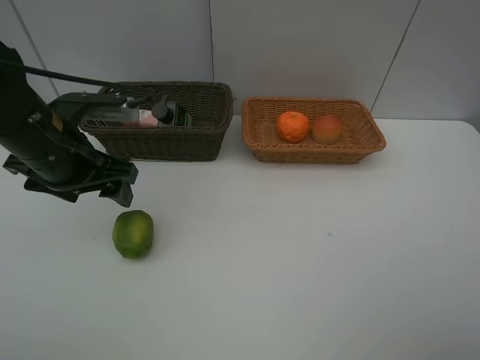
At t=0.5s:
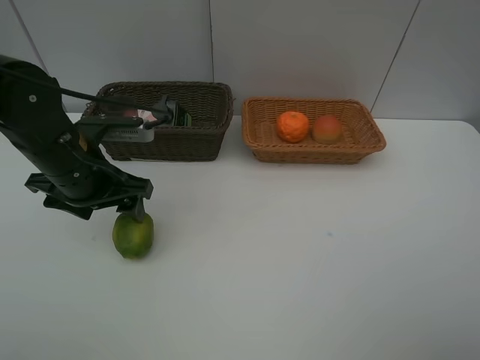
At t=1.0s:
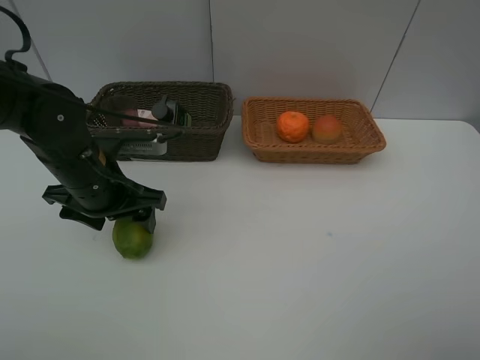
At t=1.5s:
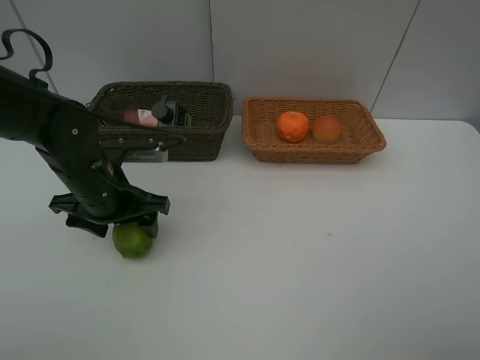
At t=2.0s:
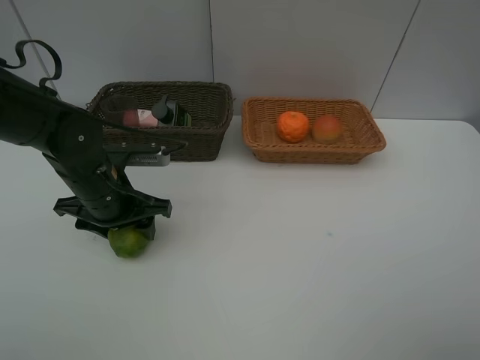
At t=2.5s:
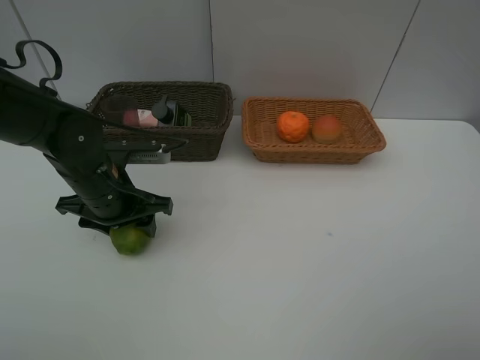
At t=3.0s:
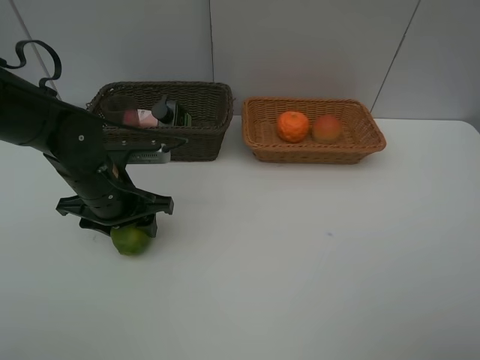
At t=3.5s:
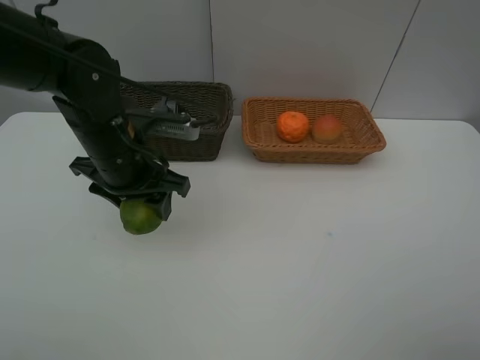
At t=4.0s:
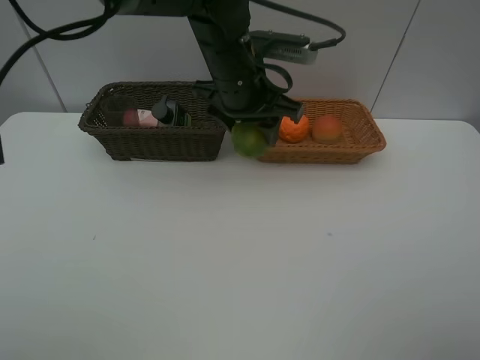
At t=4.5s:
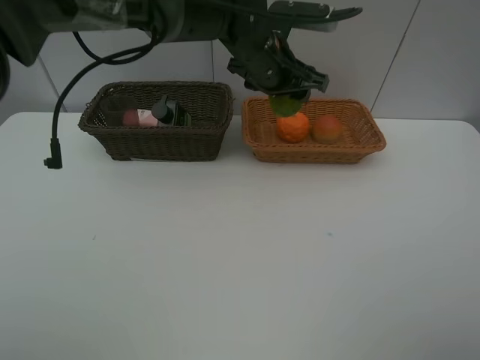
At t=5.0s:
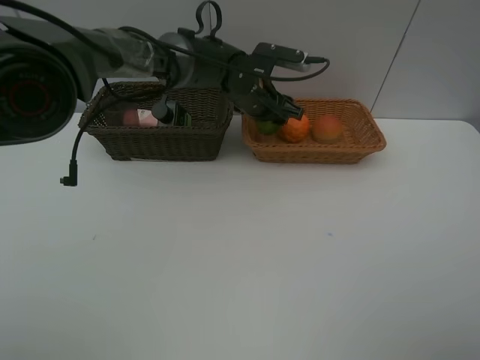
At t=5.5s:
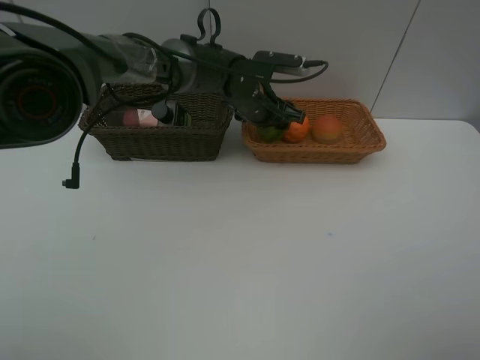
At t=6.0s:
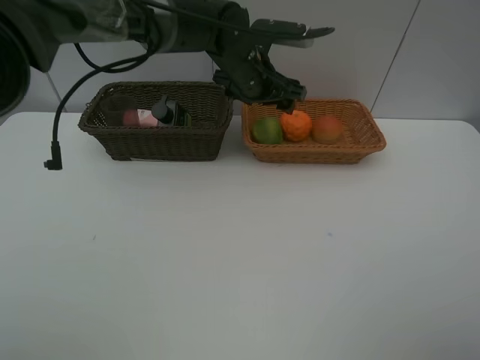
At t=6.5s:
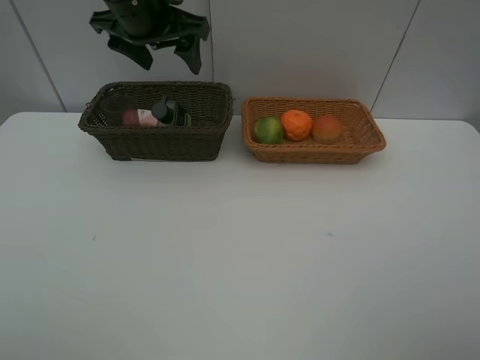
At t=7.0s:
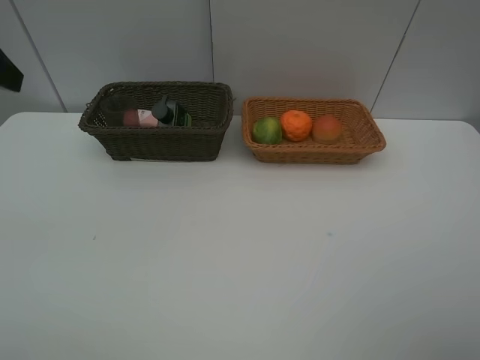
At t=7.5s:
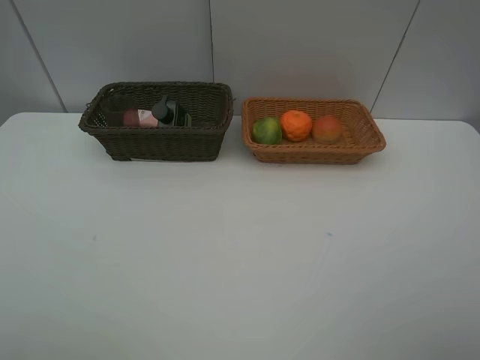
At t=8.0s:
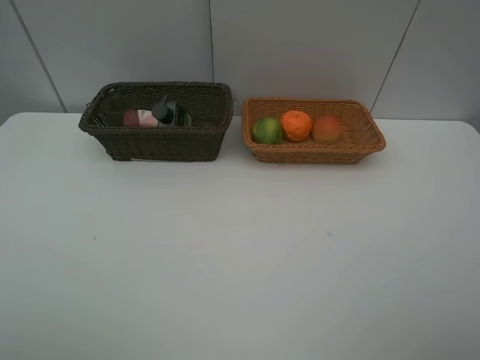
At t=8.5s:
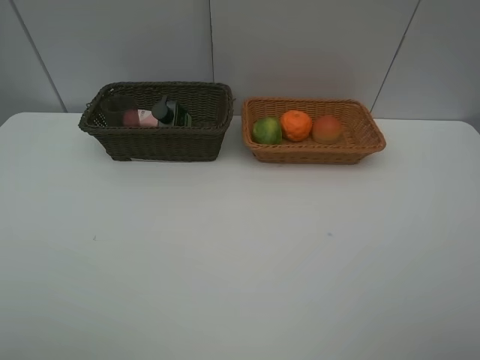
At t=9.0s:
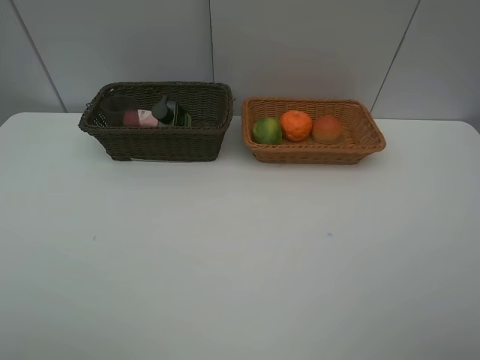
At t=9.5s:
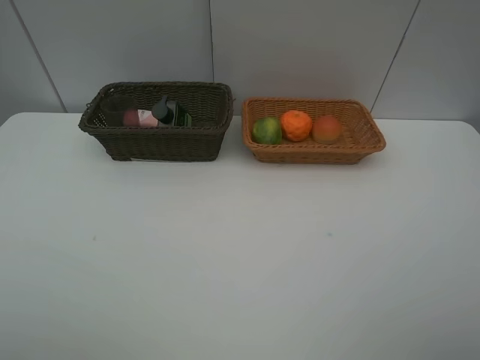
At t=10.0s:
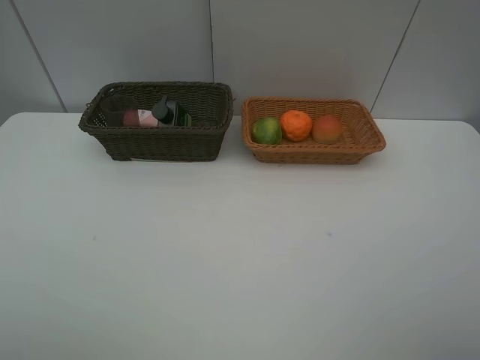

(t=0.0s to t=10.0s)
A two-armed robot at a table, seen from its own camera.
Task of the whole recording: place multiple objects separately in different baskets.
t=0.0s - t=2.0s: The left gripper moves downward, approximately 10 cm.
t=2.0s - t=4.0s: The left gripper goes roughly 25 cm to the right, upward and forward.
t=4.0s - t=6.0s: The left gripper travels forward by about 5 cm, and goes downward and returns, about 10 cm each way.
t=6.0s - t=8.0s: The left gripper heads backward and to the left, covering about 50 cm.
t=8.0s - t=10.0s: Both grippers stay put.
